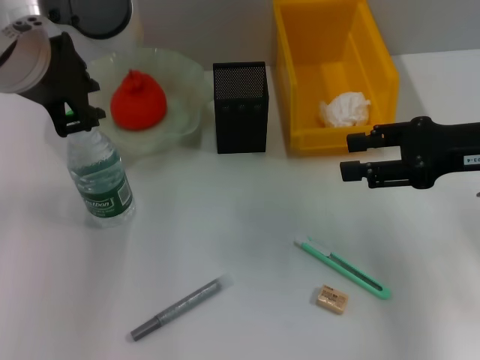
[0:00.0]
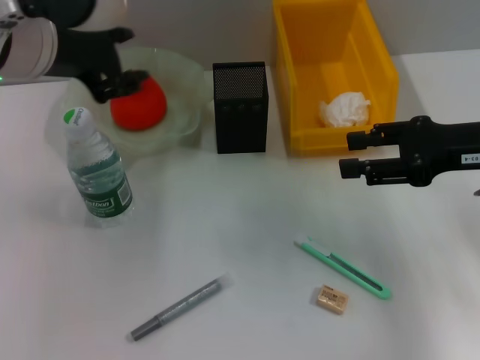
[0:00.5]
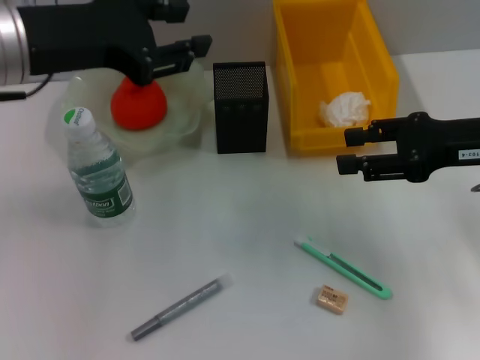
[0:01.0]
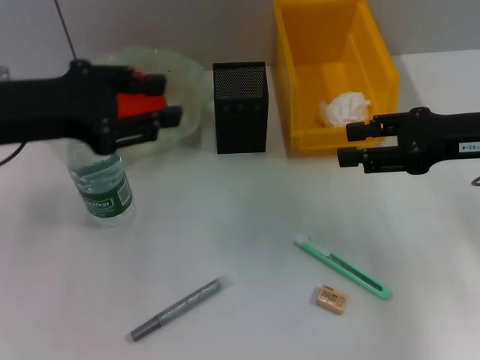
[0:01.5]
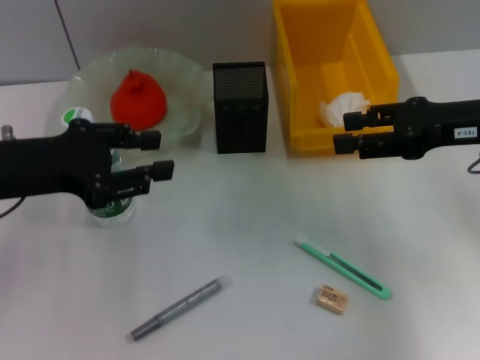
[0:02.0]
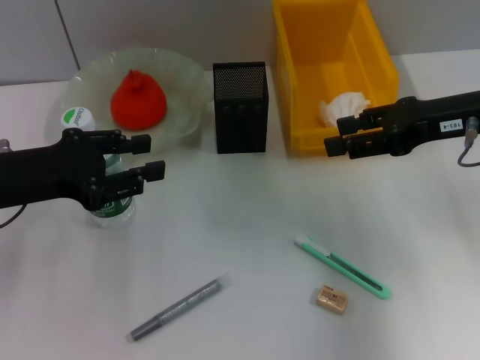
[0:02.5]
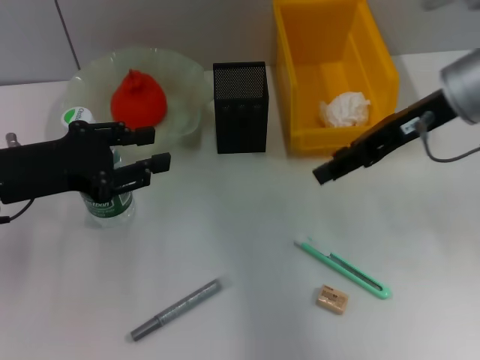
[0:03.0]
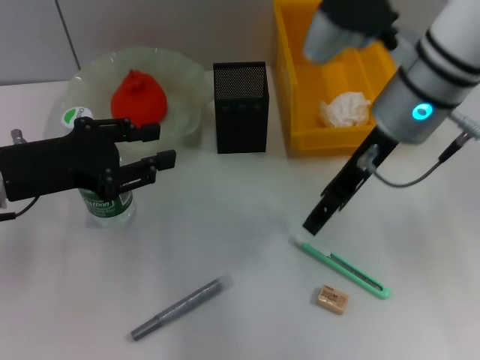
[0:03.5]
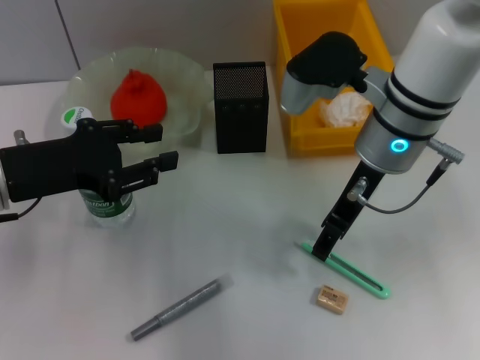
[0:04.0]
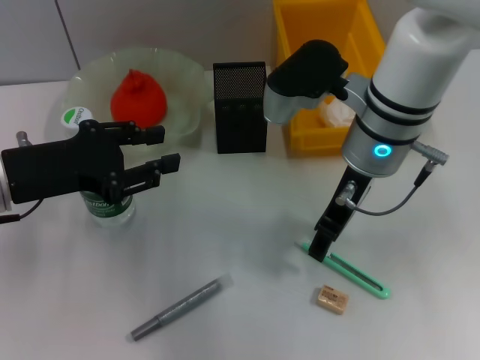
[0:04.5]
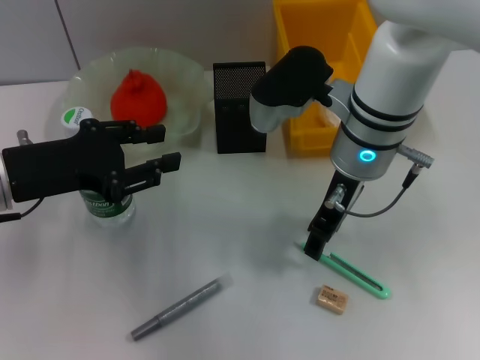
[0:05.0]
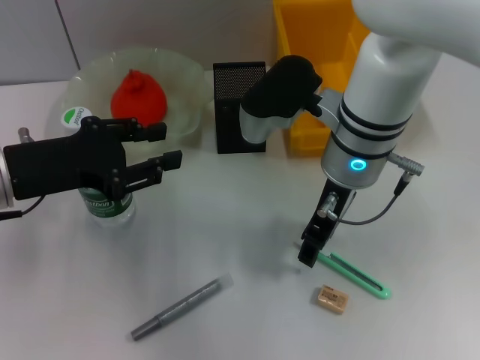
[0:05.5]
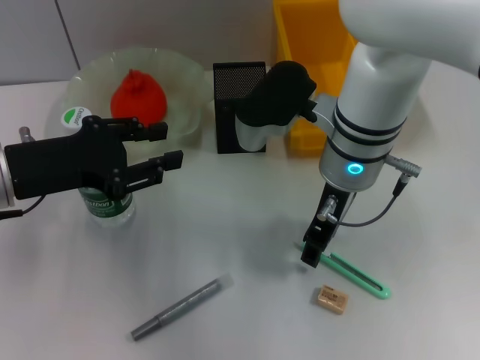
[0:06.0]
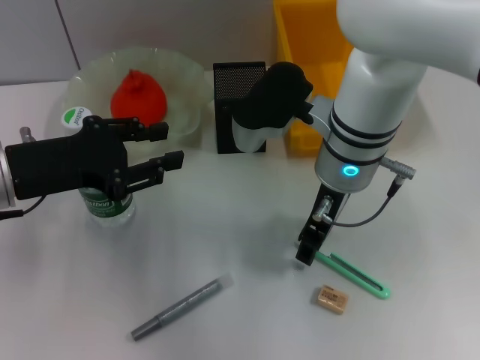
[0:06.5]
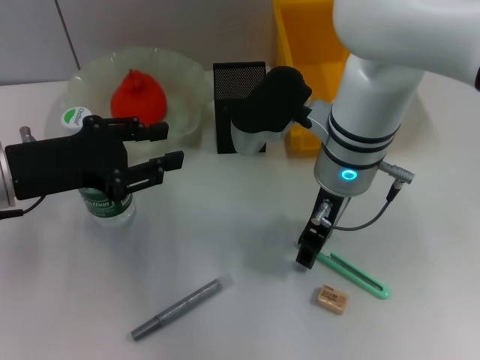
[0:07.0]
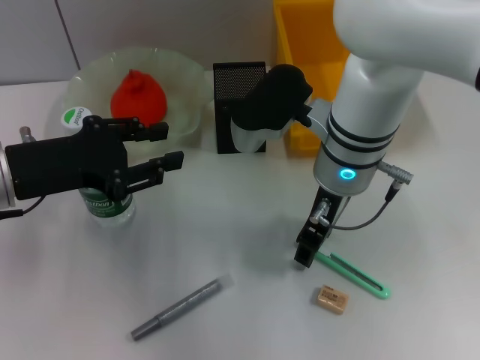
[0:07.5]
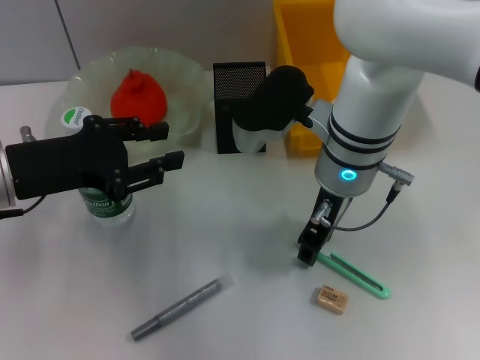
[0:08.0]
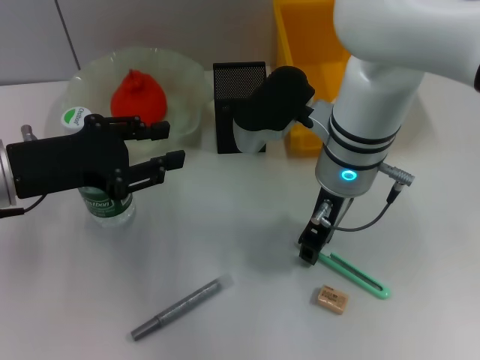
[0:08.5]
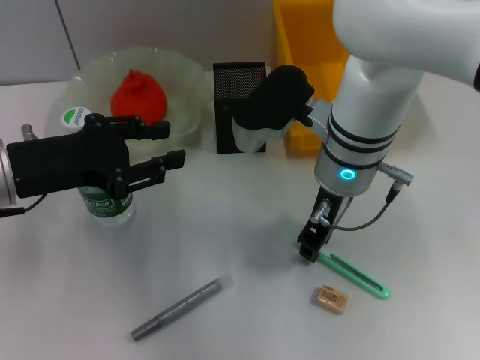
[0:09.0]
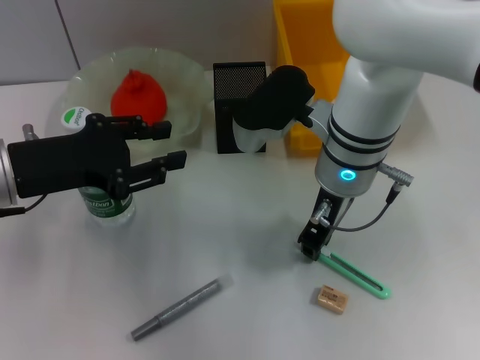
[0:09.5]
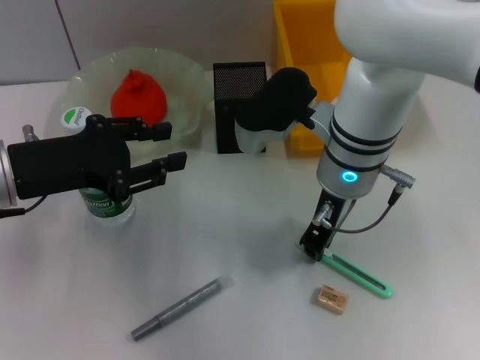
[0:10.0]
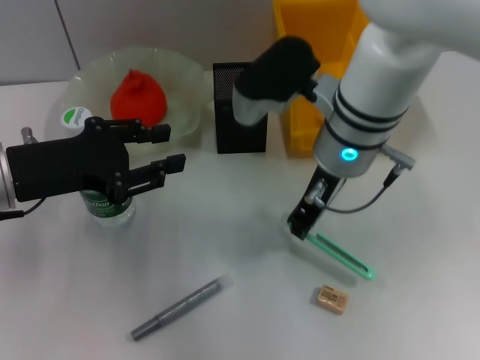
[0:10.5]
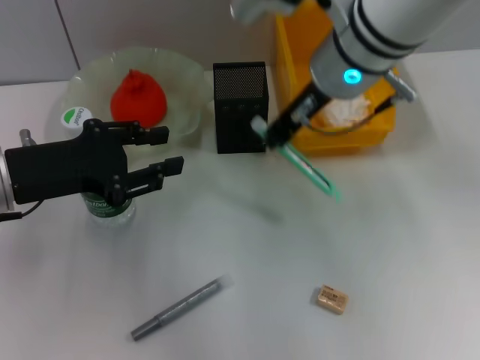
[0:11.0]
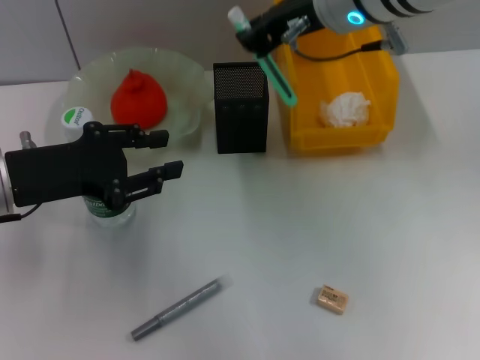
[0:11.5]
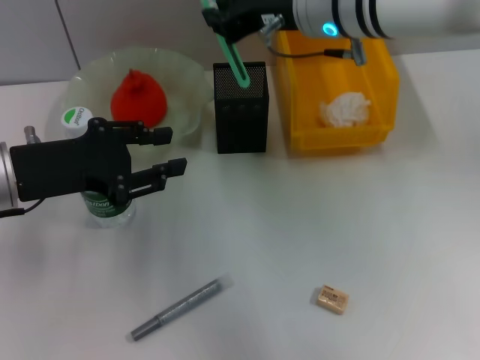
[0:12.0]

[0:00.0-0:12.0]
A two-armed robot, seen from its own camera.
Step, 0:00.0 to 0:09.5: Grab the blue utility knife with the right hand.
0:00.0 to 0:02.0: The left gripper shifts approximately 15 cm downward and to the left.
0:02.0 to 0:04.0: The right gripper goes approximately 15 cm to the left.
0:04.0 to 0:06.0: The grippers move only a little.
0:06.0 to 0:08.0: The two grippers keep their place.
0:08.0 to 0:10.0: The right gripper closes.
0:10.0 to 0:12.0: The right gripper moves upward and forward, some 10 cm.

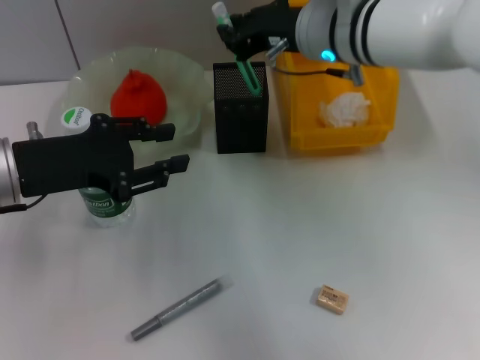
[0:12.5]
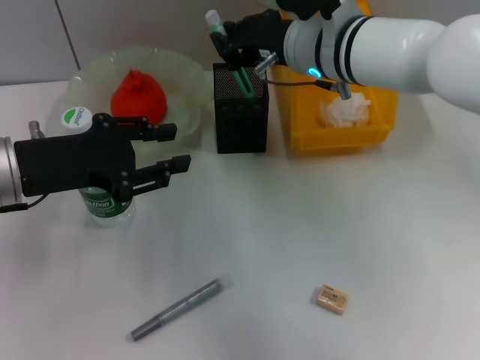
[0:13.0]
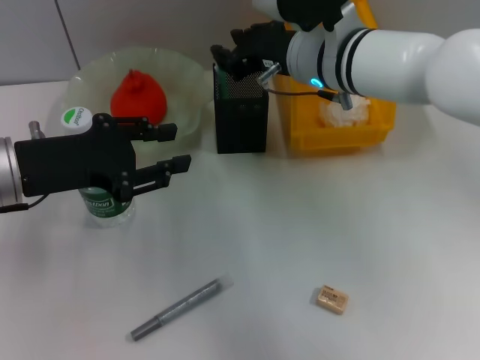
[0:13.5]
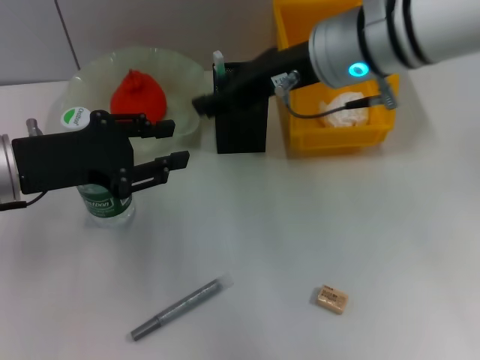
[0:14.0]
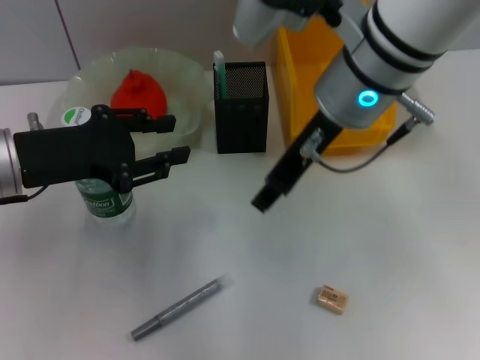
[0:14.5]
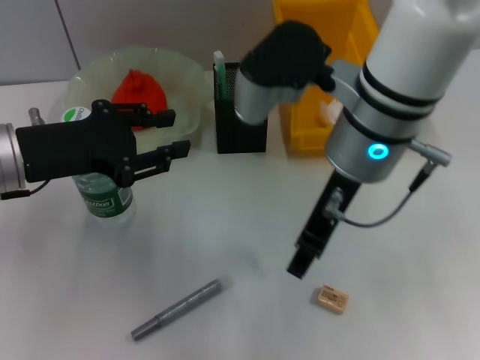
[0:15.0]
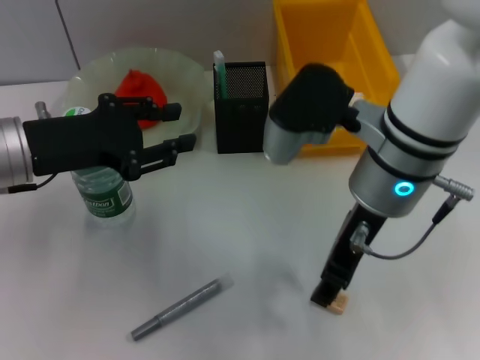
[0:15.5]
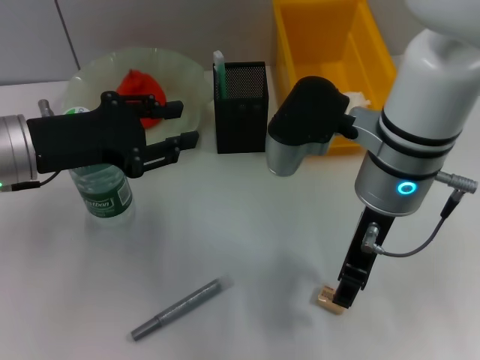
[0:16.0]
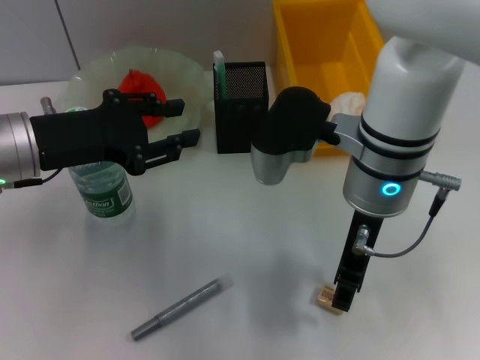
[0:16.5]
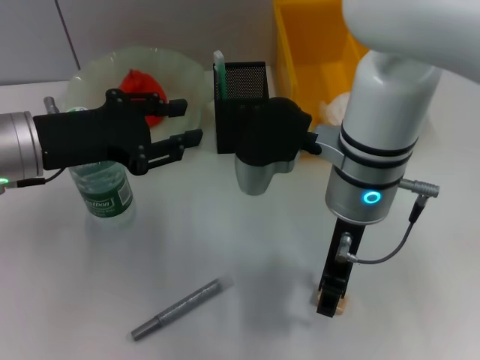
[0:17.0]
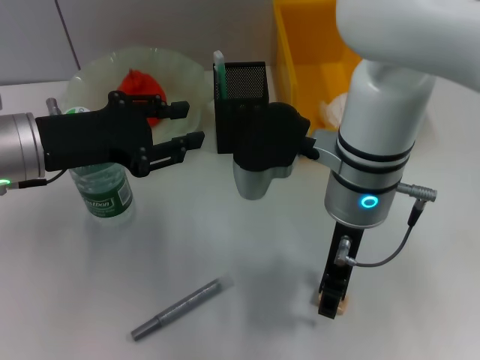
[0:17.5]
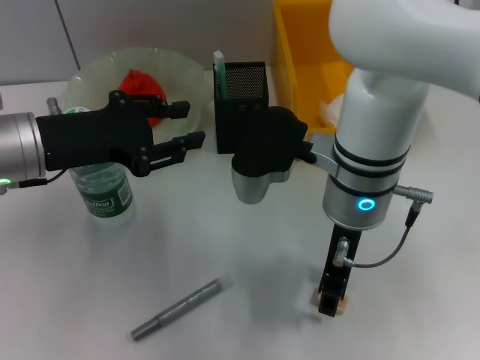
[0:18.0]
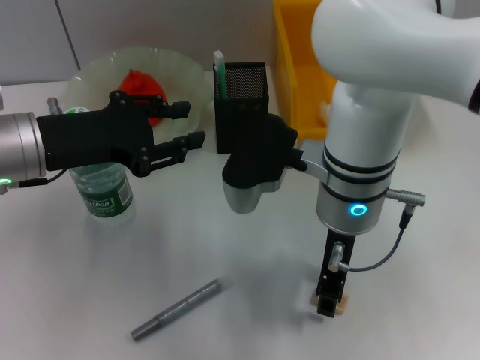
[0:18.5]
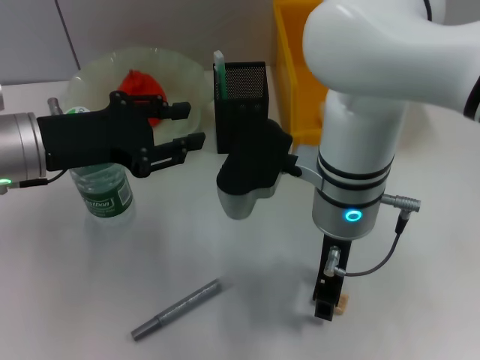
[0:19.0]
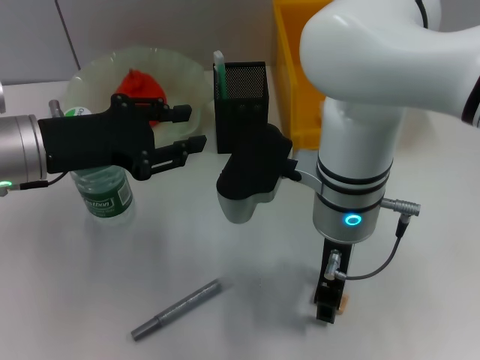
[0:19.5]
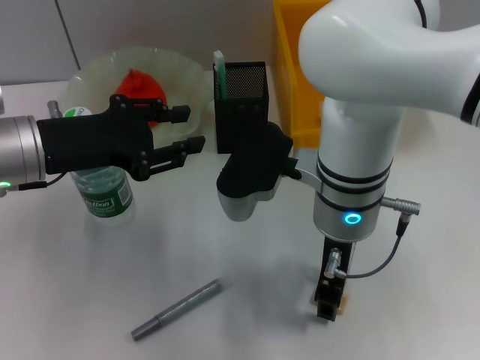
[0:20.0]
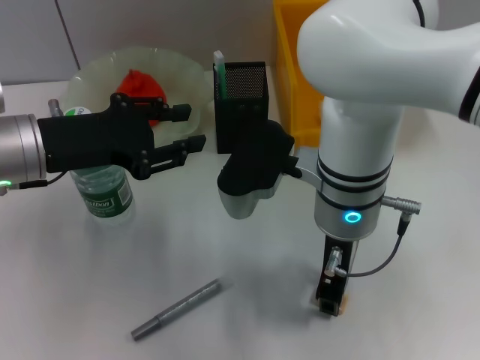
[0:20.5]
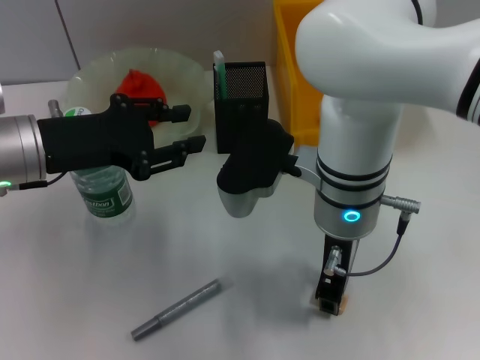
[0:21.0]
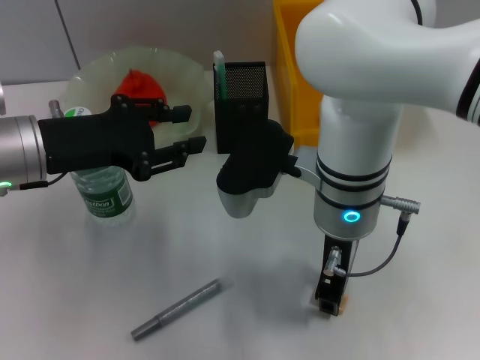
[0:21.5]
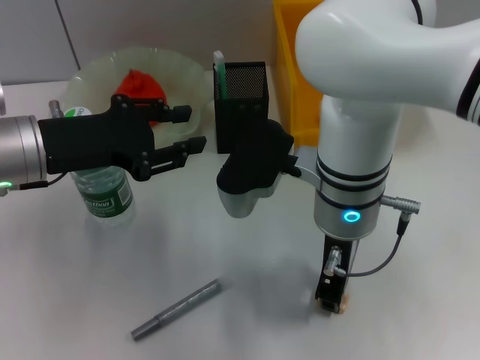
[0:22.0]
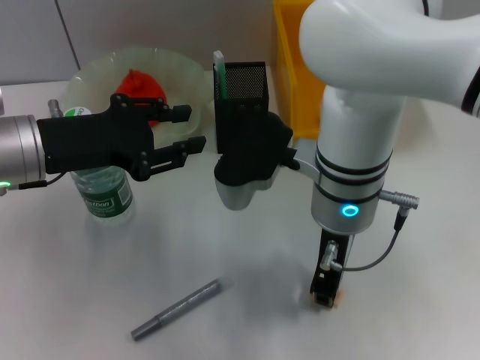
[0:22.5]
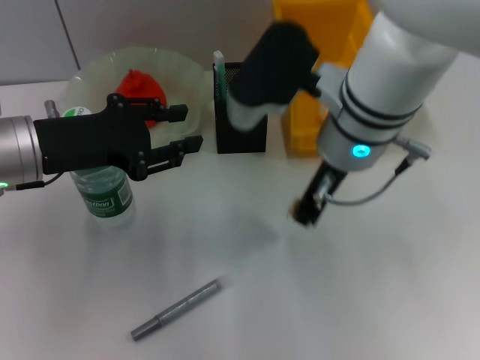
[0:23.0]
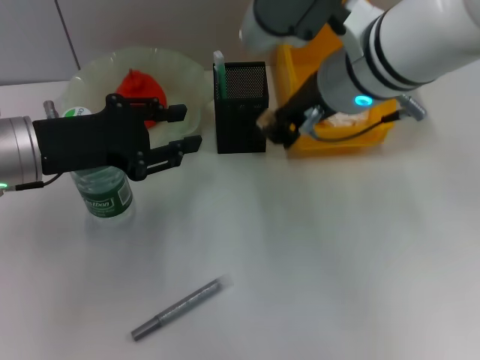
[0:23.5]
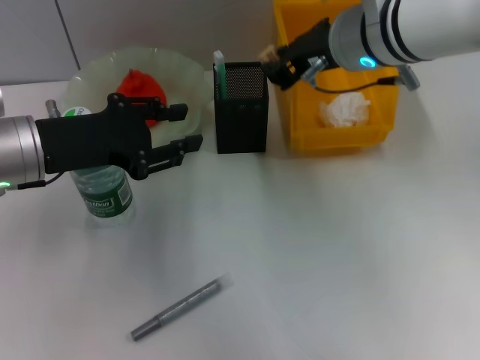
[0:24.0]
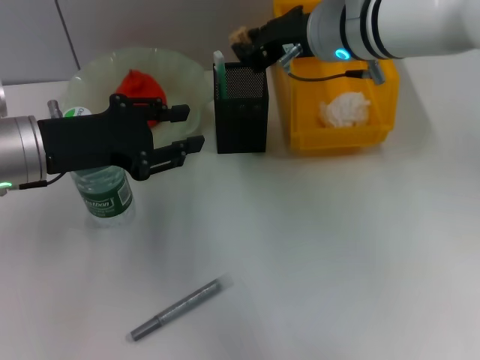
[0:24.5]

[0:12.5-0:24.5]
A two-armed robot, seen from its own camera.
Step, 0:13.5 to 0:22.0: Grab the eraser with the right hand.
0:12.5 to 0:14.5: The right gripper heads backward, covering some 5 cm, and opens.
0:14.5 to 0:16.5: The right gripper shifts roughly 5 cm downward.
0:18.5 to 0:20.5: Neither gripper changes place.
0:20.5 to 0:22.5: The right gripper closes its fingers.
0:22.5 to 0:24.5: The right gripper moves forward and upward, about 10 cm.

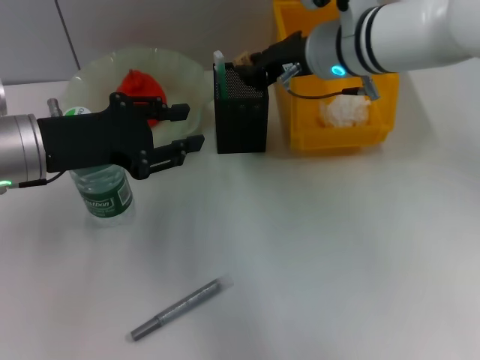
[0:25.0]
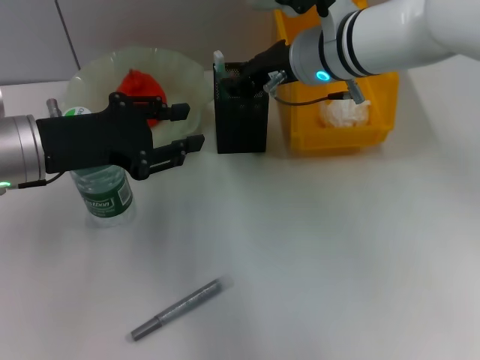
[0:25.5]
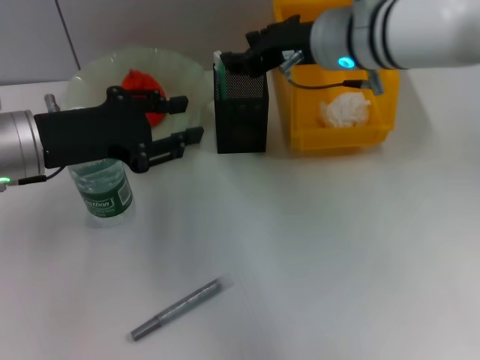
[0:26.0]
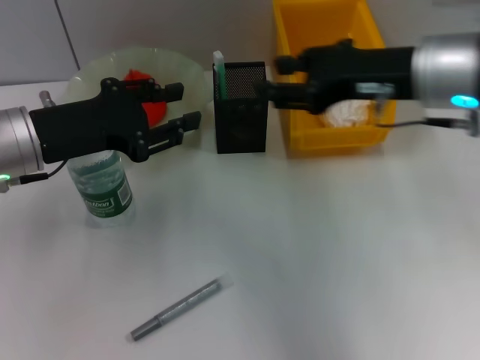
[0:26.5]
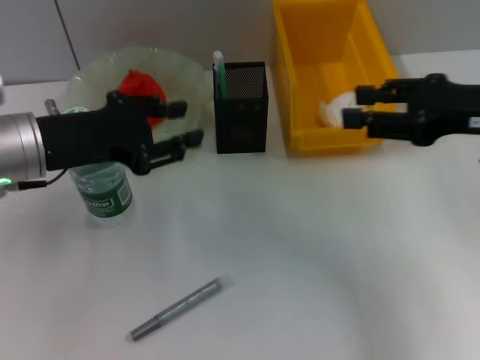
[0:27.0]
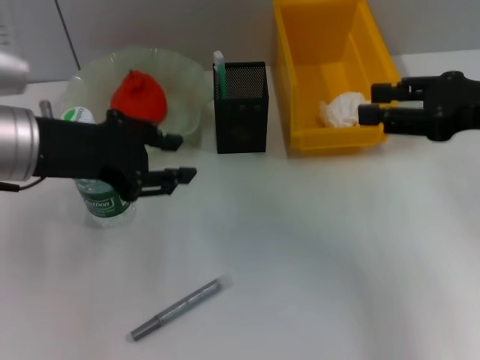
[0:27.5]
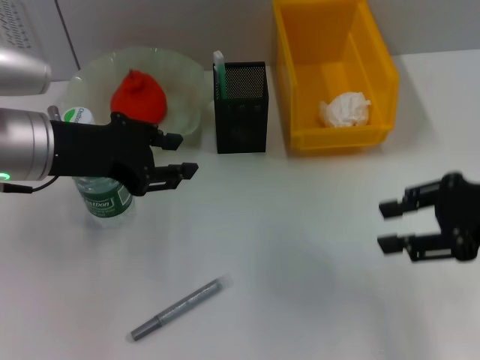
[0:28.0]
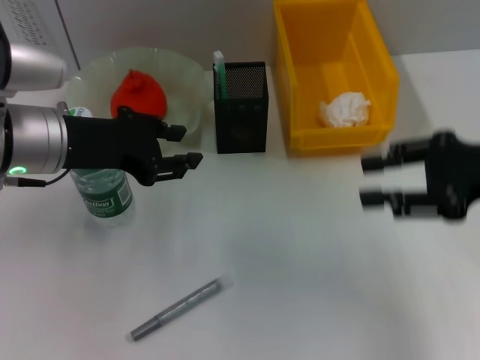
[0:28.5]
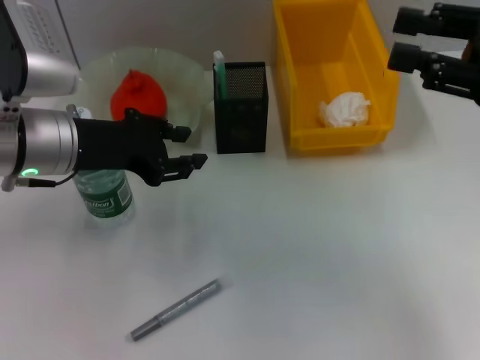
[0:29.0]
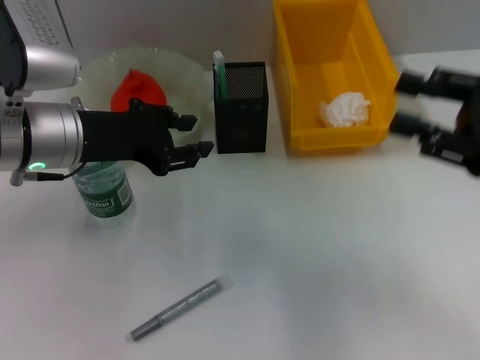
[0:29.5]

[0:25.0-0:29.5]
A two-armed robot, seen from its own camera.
0:25.0 to 0:27.0: The right gripper shifts about 20 cm to the right and backward, and opens its fingers.
0:27.0 to 0:29.5: The right gripper shifts by approximately 5 cm.
